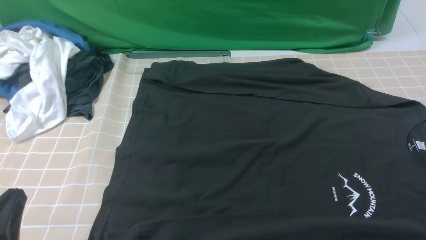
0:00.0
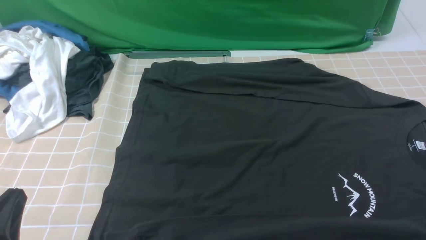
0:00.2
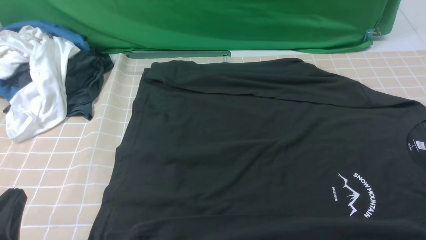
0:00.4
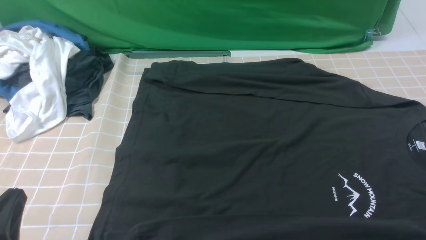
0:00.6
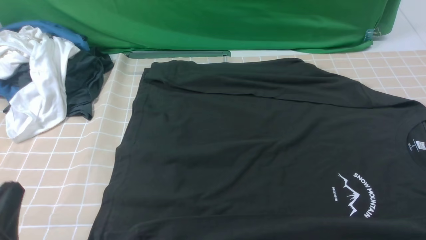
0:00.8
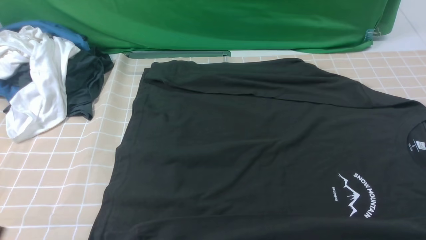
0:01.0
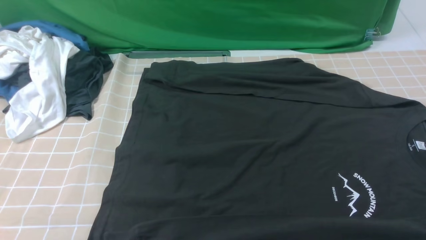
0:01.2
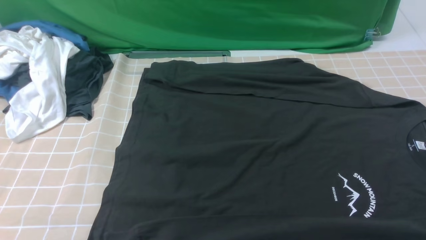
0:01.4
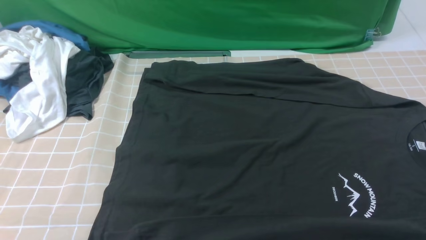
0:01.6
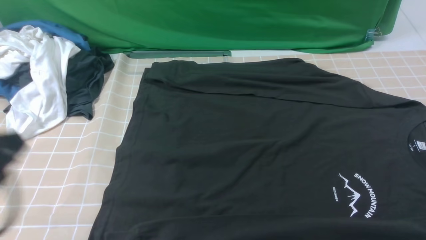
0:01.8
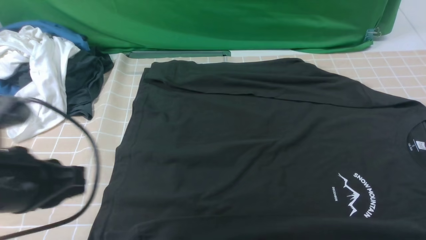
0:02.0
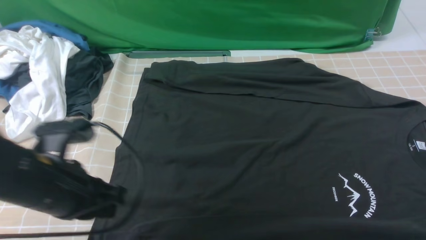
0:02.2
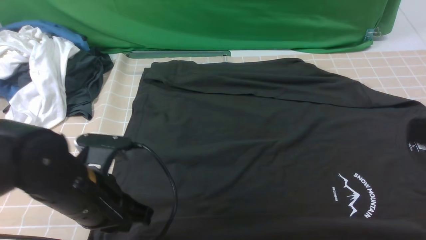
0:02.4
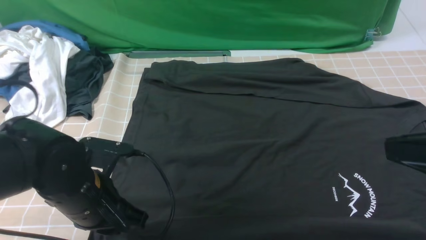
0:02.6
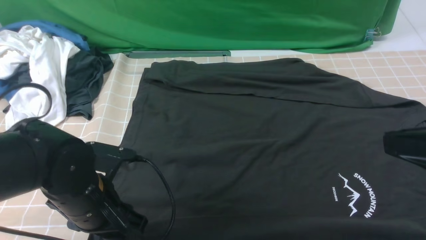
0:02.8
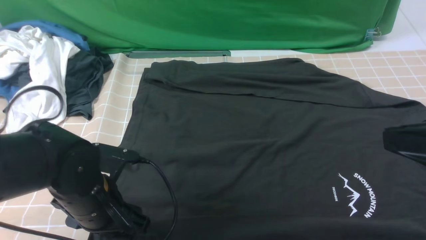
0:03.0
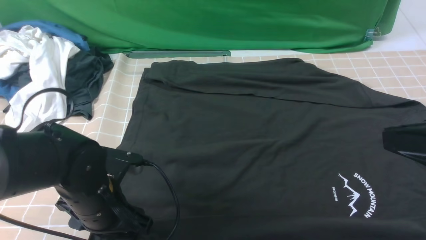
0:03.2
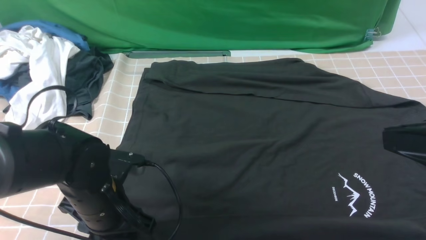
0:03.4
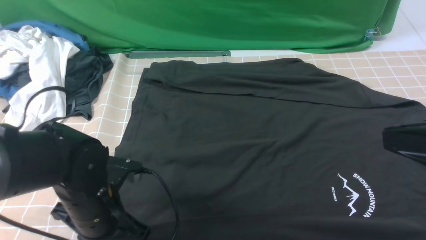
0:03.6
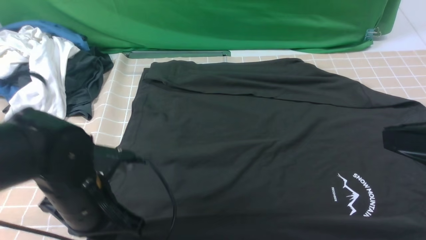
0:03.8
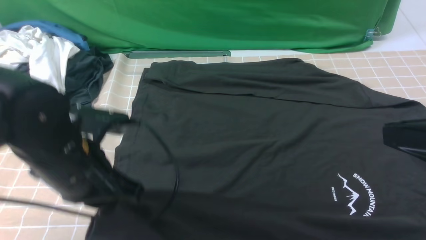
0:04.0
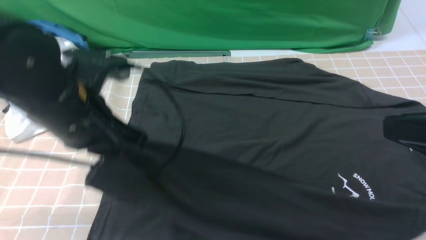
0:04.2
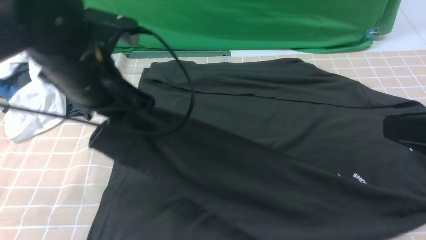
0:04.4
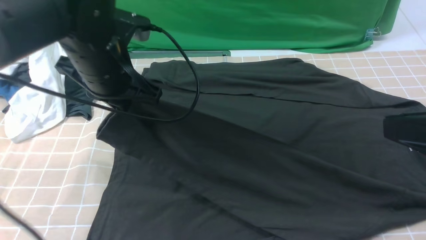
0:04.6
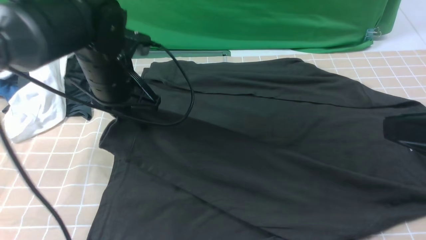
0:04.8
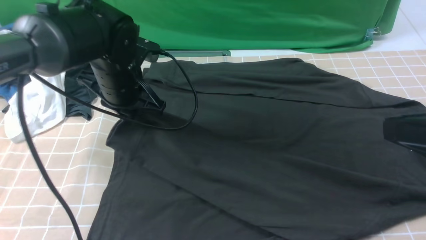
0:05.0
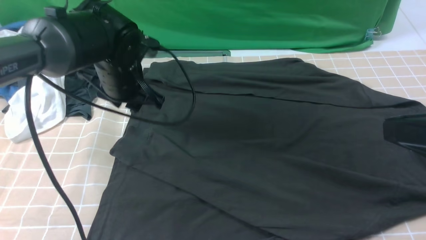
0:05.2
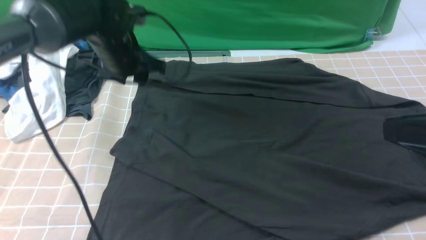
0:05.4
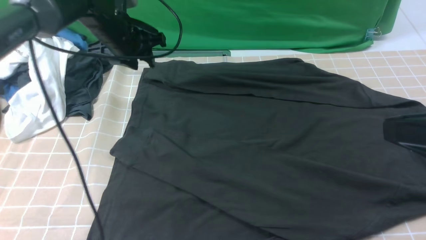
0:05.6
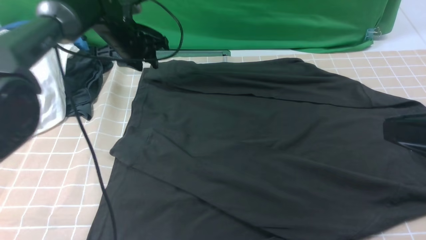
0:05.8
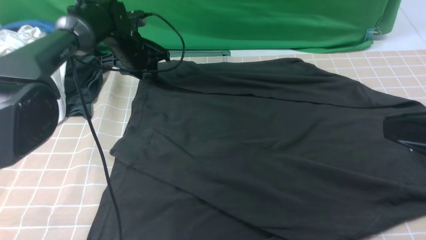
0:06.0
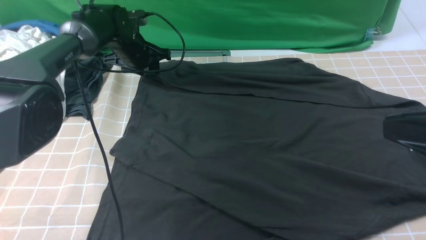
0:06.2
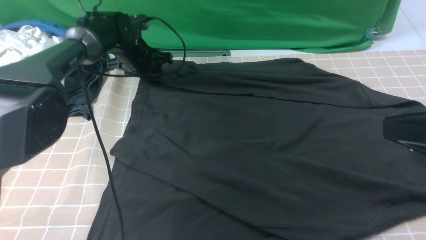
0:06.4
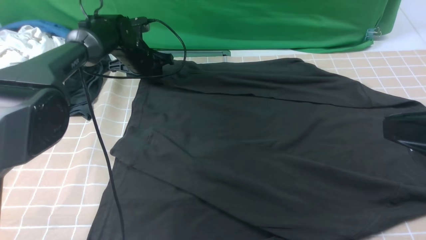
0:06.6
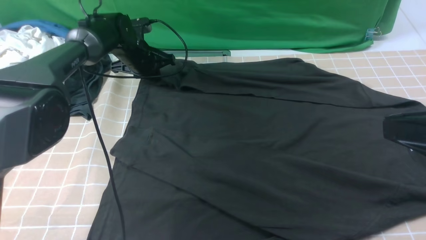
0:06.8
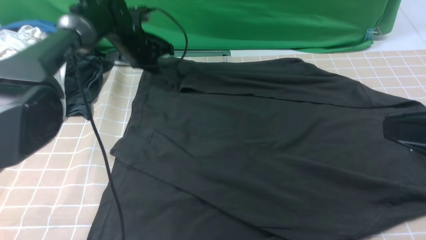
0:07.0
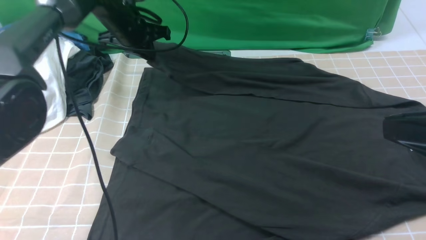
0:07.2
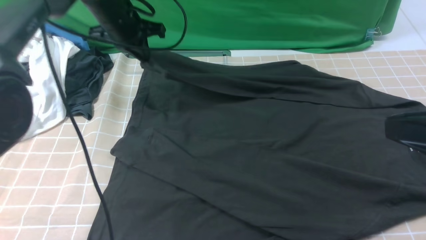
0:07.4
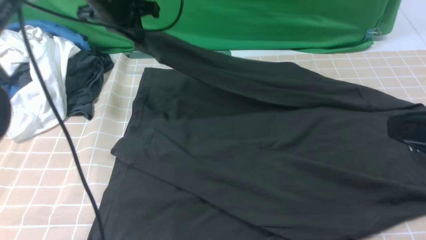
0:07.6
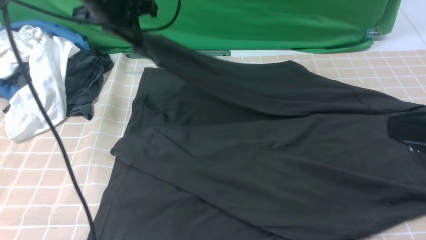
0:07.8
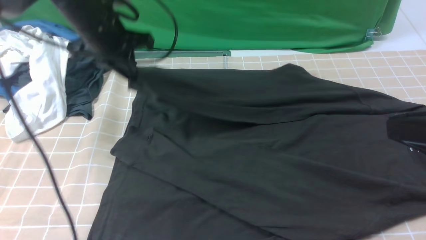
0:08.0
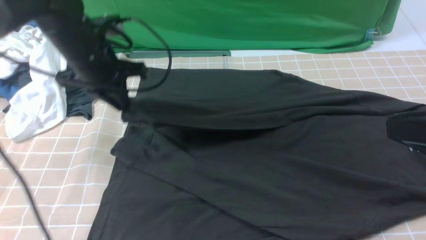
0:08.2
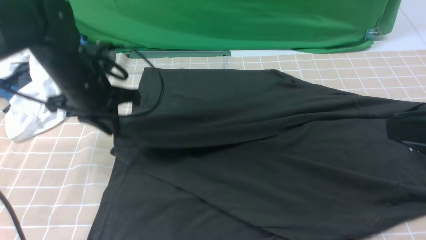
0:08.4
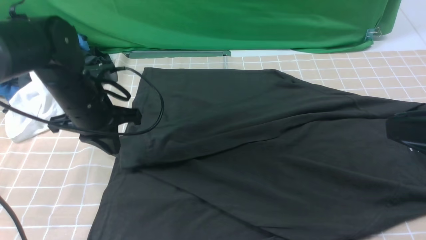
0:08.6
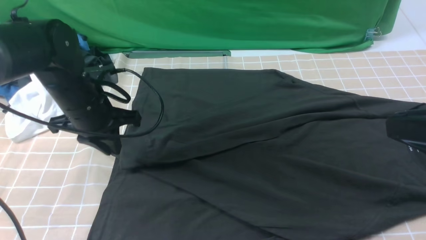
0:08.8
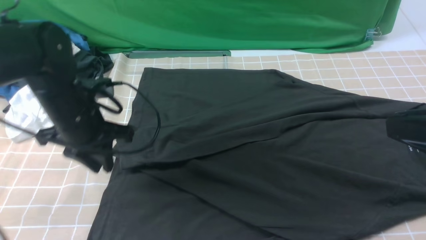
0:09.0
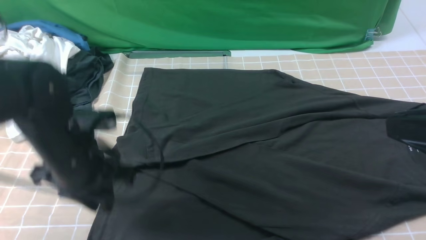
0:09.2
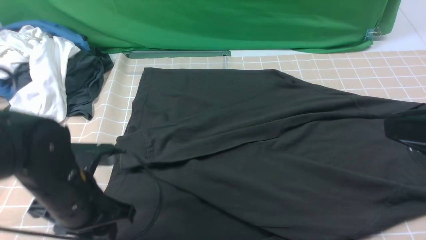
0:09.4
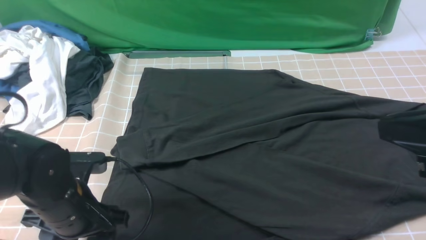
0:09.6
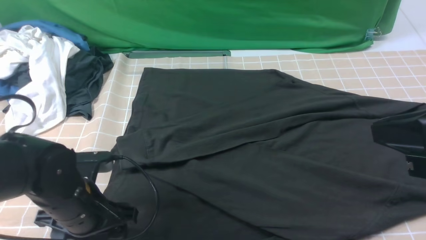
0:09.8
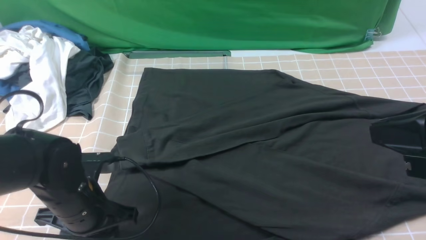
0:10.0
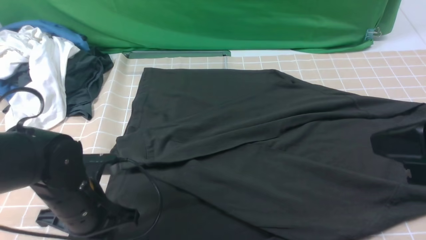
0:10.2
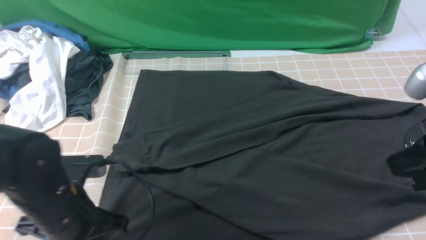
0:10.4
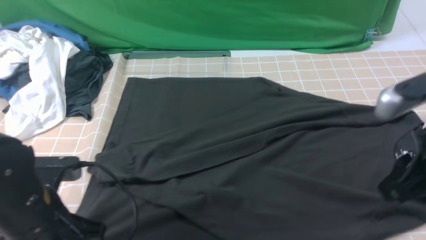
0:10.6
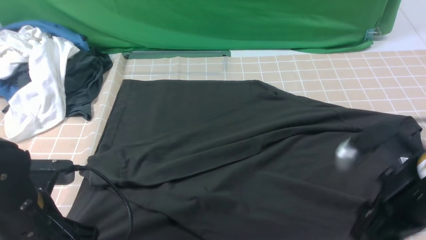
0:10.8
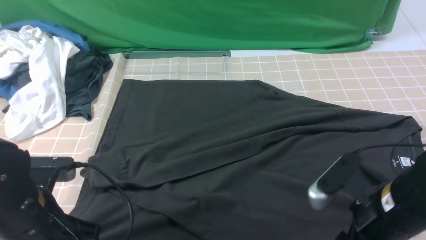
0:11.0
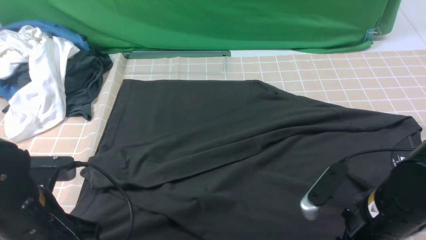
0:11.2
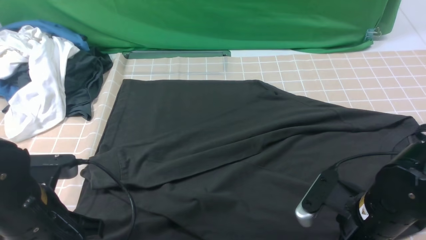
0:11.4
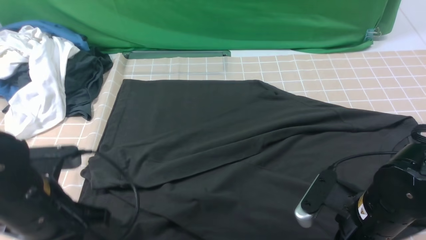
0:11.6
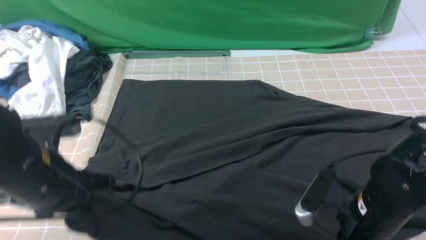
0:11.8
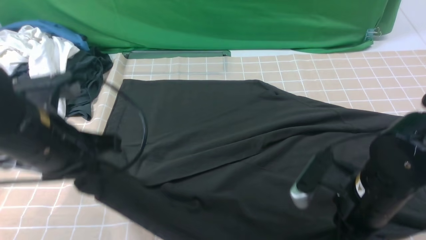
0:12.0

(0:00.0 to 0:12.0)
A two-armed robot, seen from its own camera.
Step, 0:00.0 - 0:03.4: use the left arm to clamp the cuff closest to it.
Step, 0:03.6 - 0:05.0: use the left arm to drag and place the cuff at the centered position on the left edge of the fabric.
Step, 0:05.2 - 0:06.8: use the left arm to clamp the cuff farthest from it.
Step, 0:07.0 - 0:08.6: use the left arm to drag and drop the cuff onto the cuff closest to the left arm.
Step, 0:08.8 - 0:11.4: use both arms simultaneously to clamp the lower edge of the clothing fabric.
0:00.0 - 0:01.6: The left gripper goes approximately 10 cm upward.
0:01.6 - 0:03.0: The right gripper travels upward, to the left and forward by about 15 cm, and closes up; the left gripper heads downward, forward and to the right, covering some 20 cm, and opens its fingers.
0:03.0 - 0:04.4: The left gripper is displaced upward and forward by approximately 15 cm, and closes up.
0:04.4 - 0:06.0: The left gripper heads forward and downward, covering about 25 cm, and opens.
0:06.0 - 0:07.6: The left gripper is displaced upward and backward by about 15 cm, and closes.
0:07.6 - 0:09.0: The left gripper shifts roughly 20 cm backward and downward.
0:09.0 - 0:10.4: The left gripper goes roughly 10 cm backward, and opens, then closes again.
0:10.4 - 0:12.0: The left gripper travels upward by some 10 cm. The right gripper goes roughly 15 cm downward and to the left, and opens, then closes again.

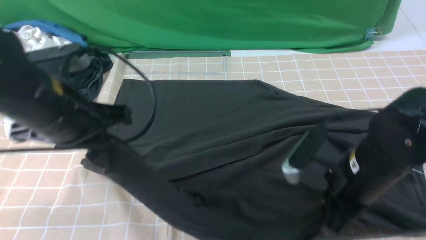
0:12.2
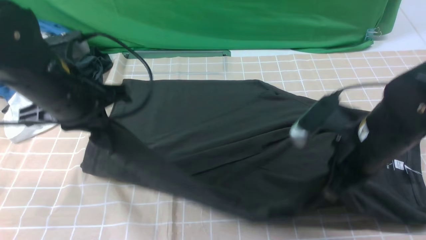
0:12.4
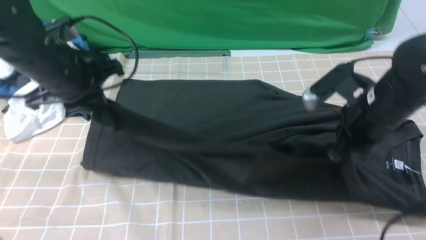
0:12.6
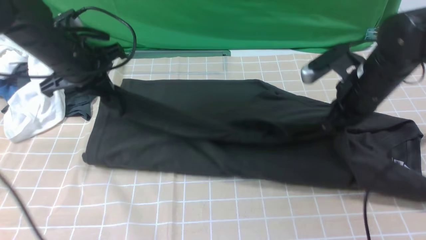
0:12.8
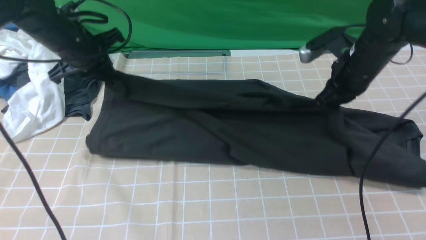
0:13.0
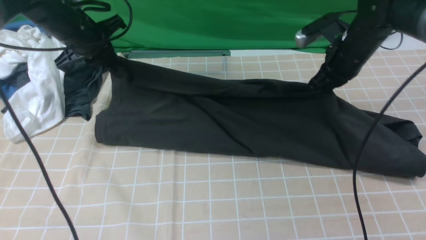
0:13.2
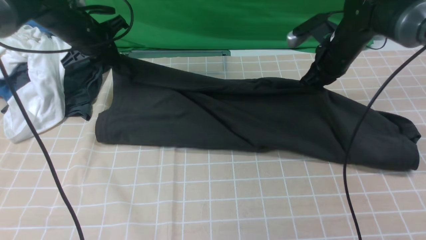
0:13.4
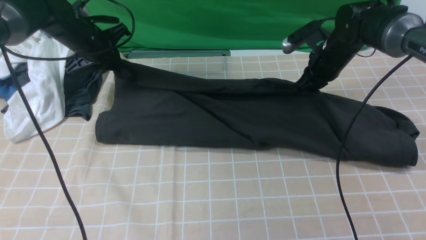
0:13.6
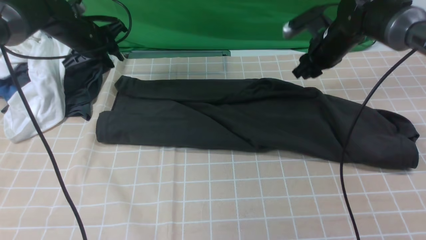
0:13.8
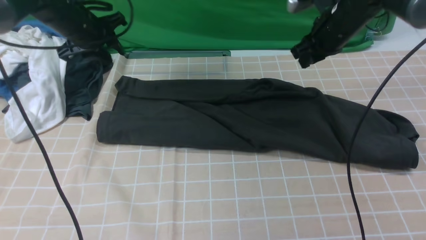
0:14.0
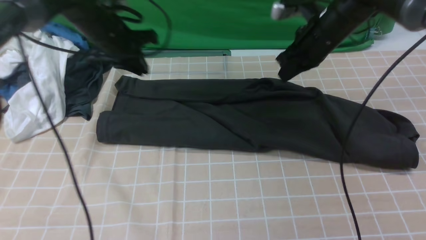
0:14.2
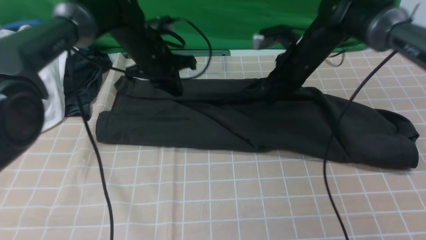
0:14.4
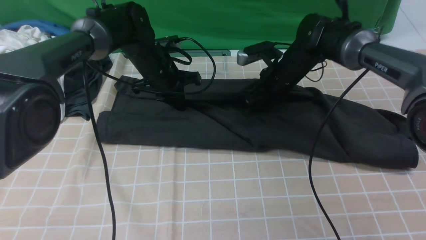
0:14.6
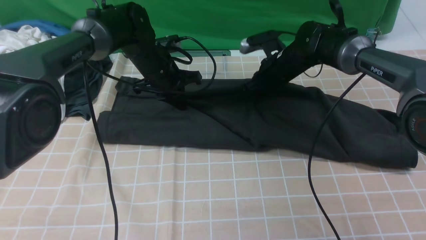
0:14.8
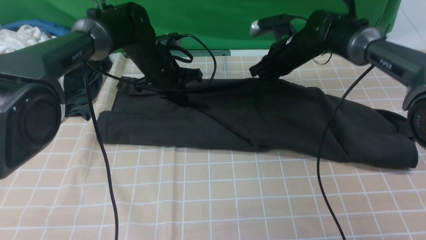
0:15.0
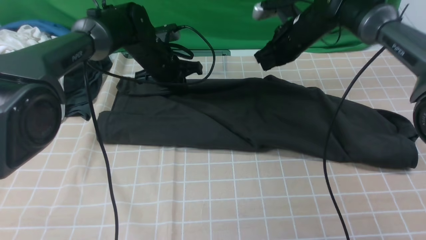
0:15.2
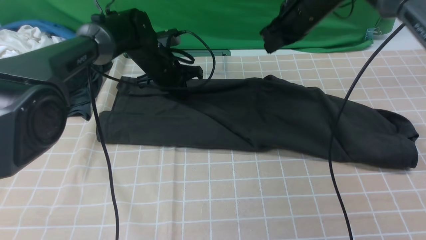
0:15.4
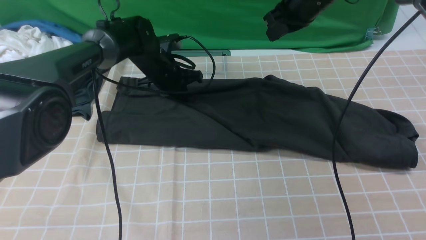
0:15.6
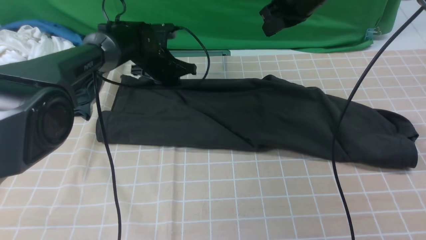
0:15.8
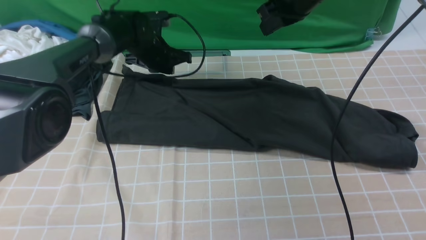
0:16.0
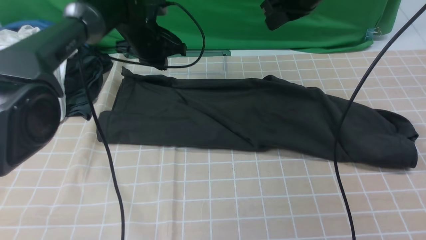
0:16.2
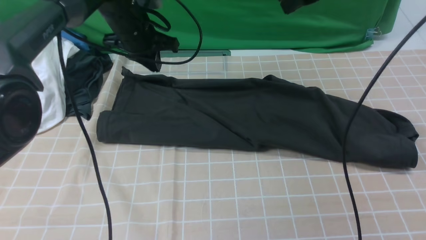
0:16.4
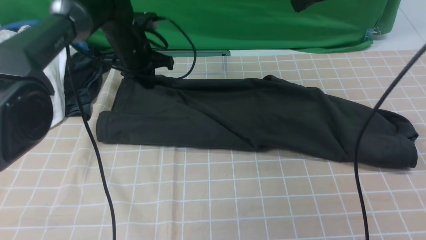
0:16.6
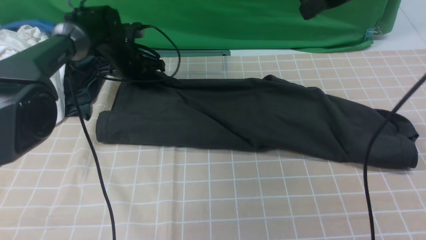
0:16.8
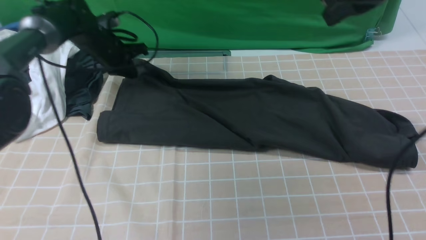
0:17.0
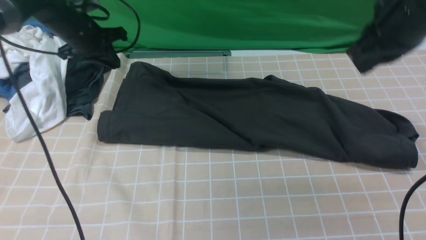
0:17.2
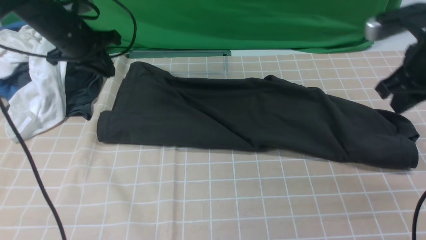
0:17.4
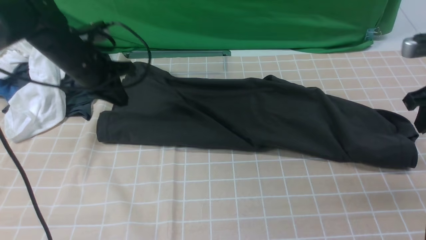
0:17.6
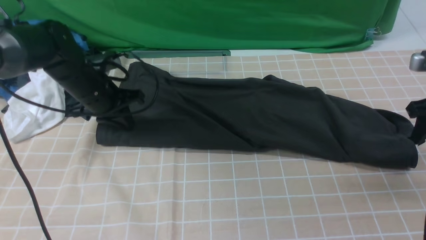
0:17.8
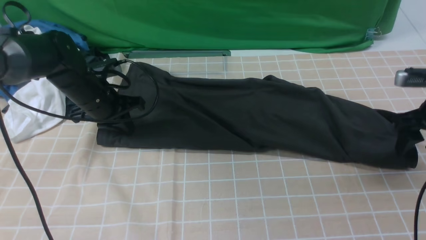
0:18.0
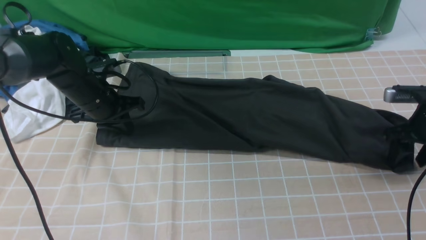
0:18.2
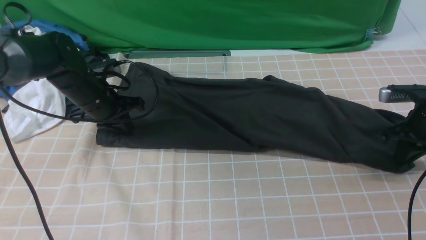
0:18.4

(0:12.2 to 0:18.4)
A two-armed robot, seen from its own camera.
Step, 0:12.2 - 0:15.8: use both arms to drag the lower edge of the fabric forward and fold it over the upper edge.
0:12.2 - 0:13.8: The grippers both shift forward by approximately 25 cm. The left gripper opens. Meanwhile the right gripper opens.
0:13.8 - 0:15.4: The right gripper goes some 10 cm upward and to the left, and closes its fingers; the left gripper travels to the right and downward by roughly 15 cm, and closes.
0:15.4 - 0:16.8: The right gripper travels upward and backward by roughly 15 cm. The left gripper is displaced to the left by about 10 cm.
0:16.8 - 0:18.4: The left gripper goes approximately 10 cm backward. The right gripper is displaced downward and to the right by some 30 cm, and opens up.
